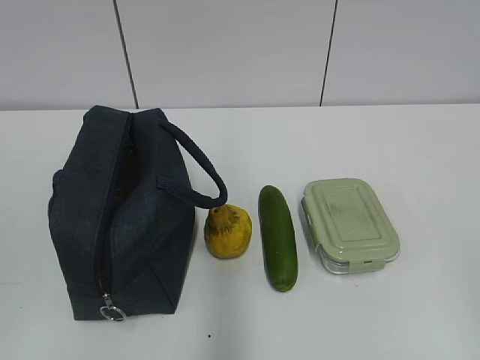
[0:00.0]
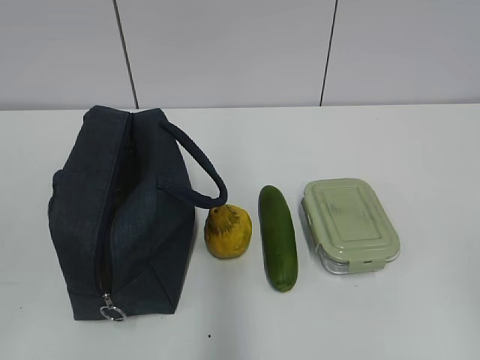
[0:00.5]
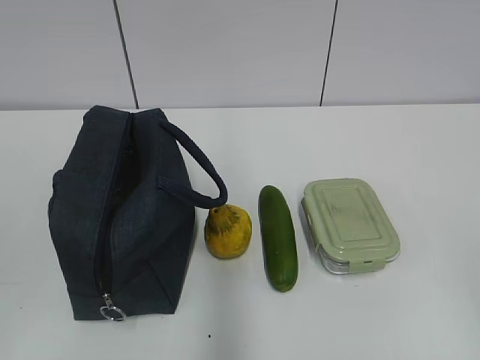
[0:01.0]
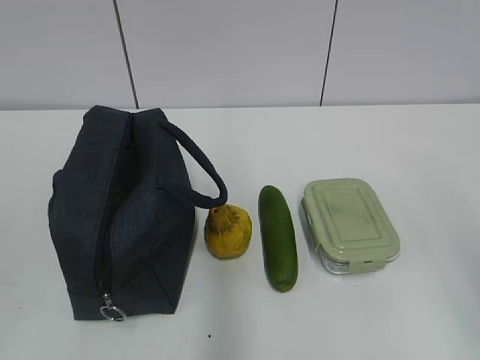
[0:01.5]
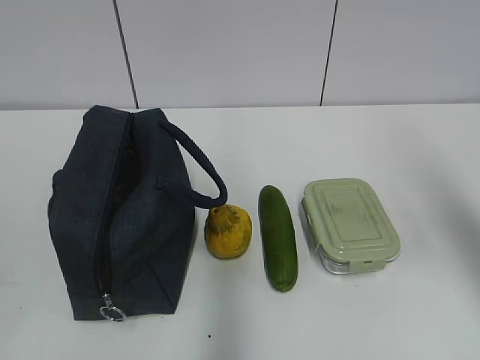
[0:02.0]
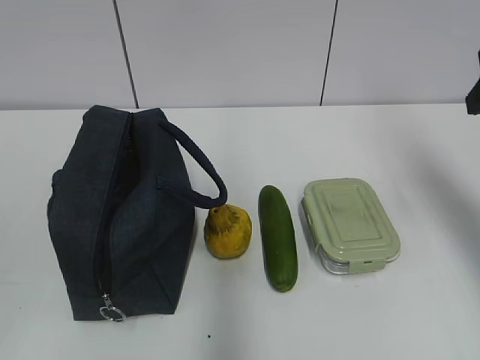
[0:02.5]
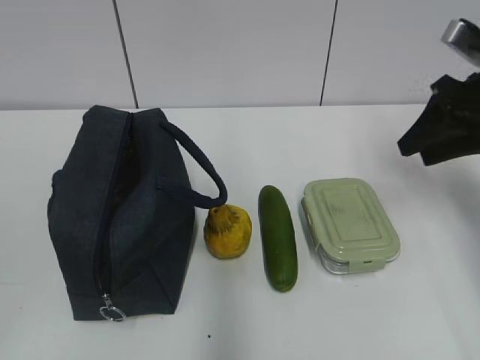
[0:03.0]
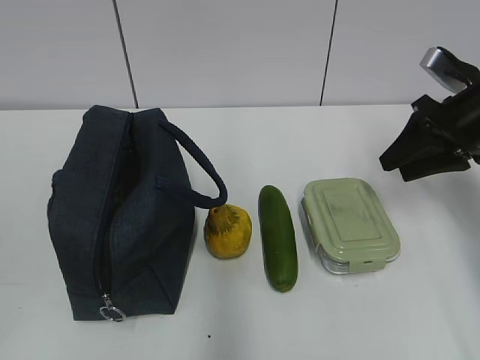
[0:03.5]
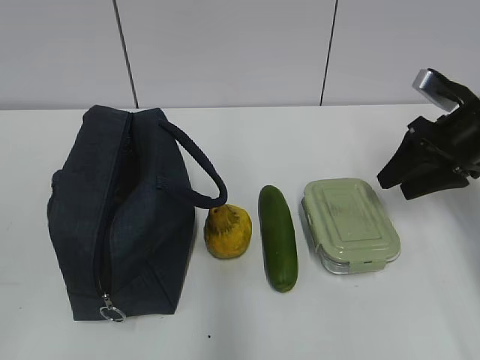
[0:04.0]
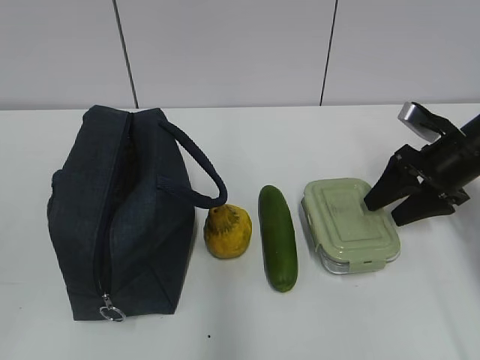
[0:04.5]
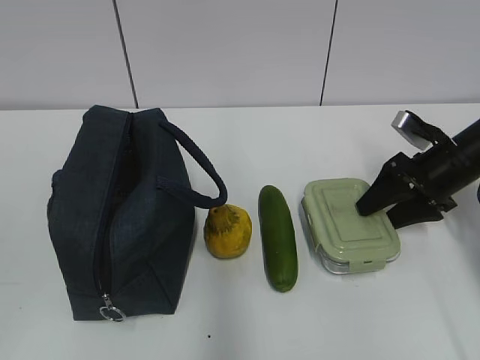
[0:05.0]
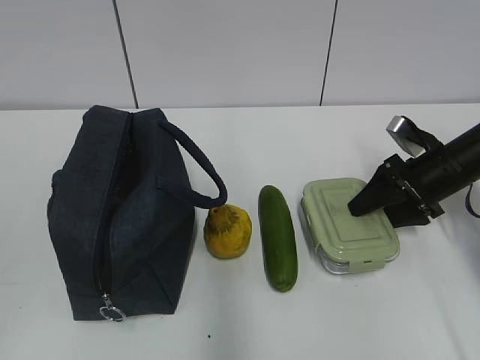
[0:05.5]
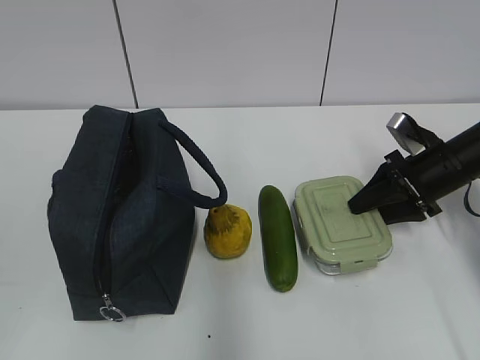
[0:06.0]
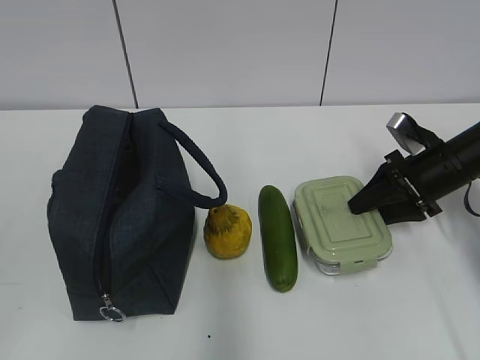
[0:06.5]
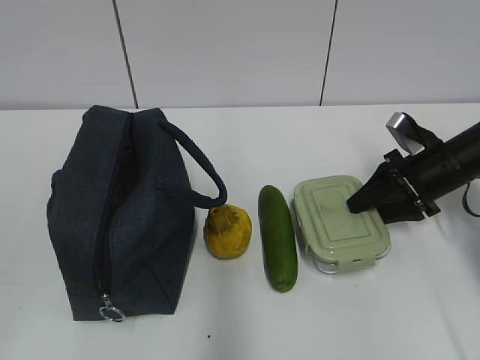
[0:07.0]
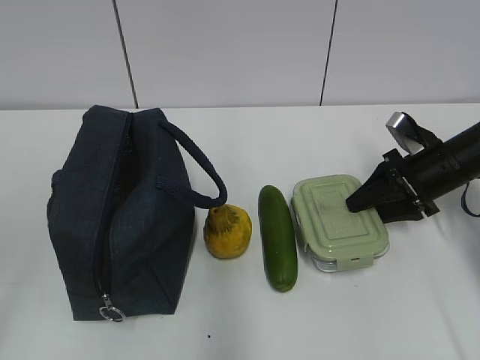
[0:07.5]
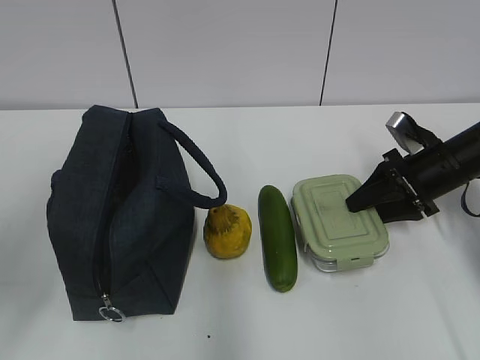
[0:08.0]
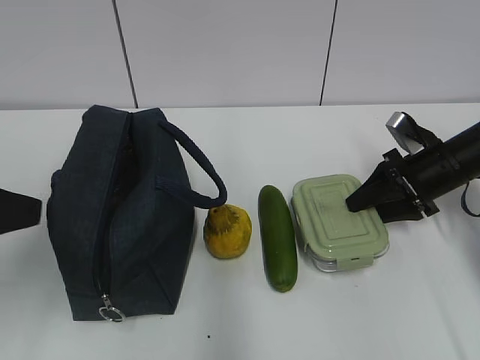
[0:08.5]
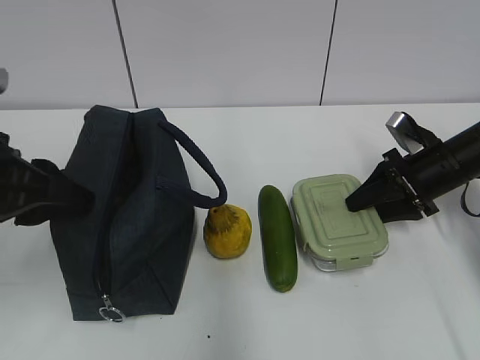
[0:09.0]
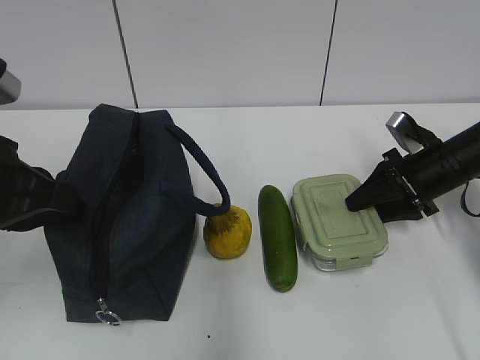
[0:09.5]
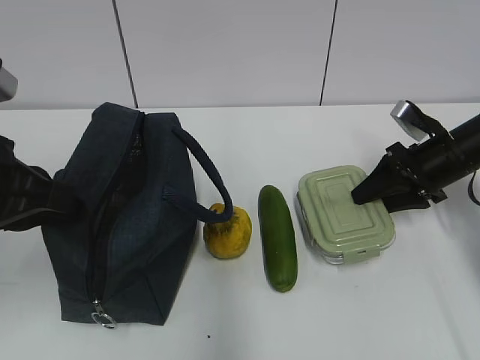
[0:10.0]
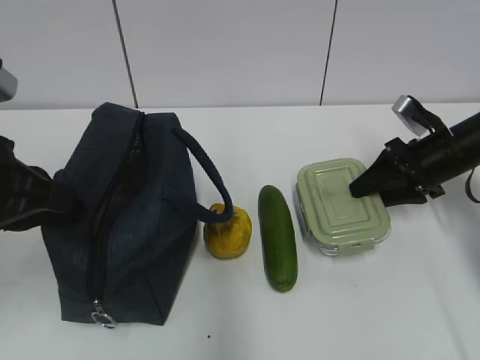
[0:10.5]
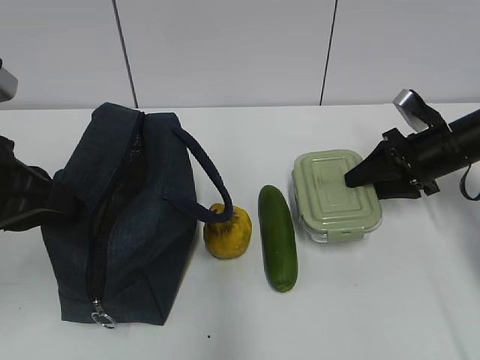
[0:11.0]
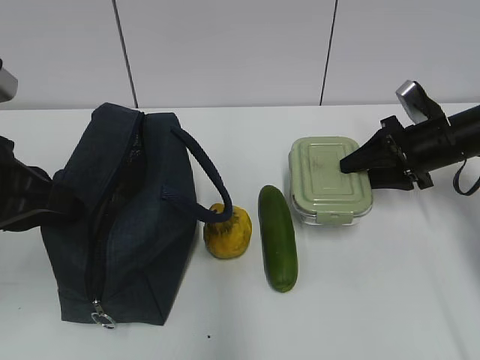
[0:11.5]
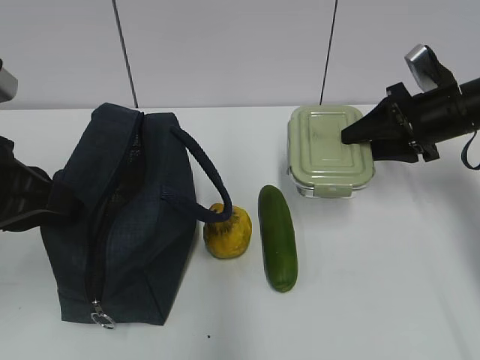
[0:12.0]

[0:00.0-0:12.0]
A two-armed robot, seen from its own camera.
Step, 0:00.0 to 0:06.0: Grab the lunch box with your right hand.
0:02.0 to 0:04.0: The right gripper goes approximately 25 cm forward and downward.
0:04.0 to 0:06.0: The right gripper heads downward, covering about 5 cm.
0:06.0 to 0:08.0: The left gripper heads forward, covering about 15 cm.
0:08.0 to 0:10.0: The left gripper is displaced forward and to the right by about 10 cm, and closes its fingers.
0:10.0 to 0:12.0: The right gripper moves upward, roughly 5 cm.

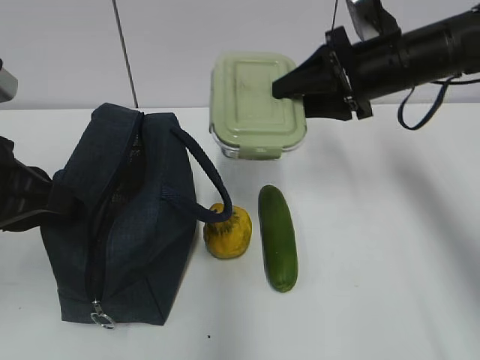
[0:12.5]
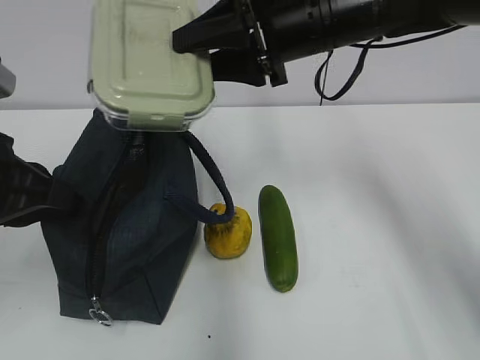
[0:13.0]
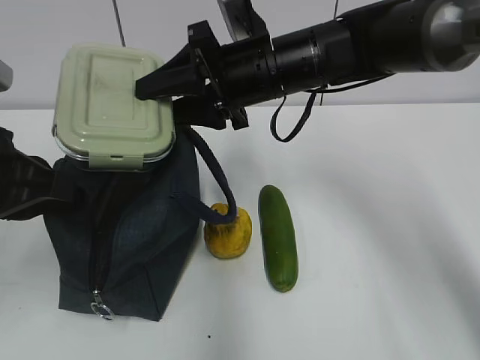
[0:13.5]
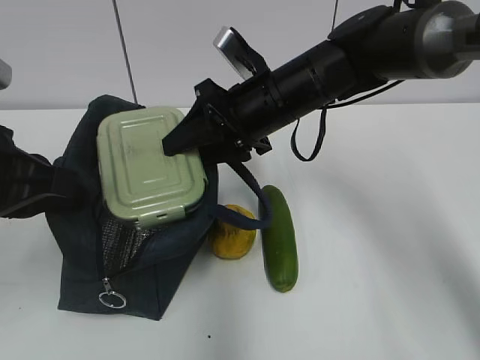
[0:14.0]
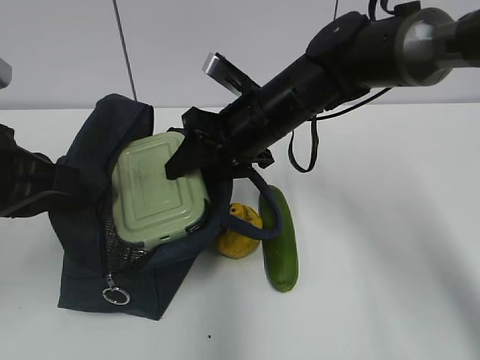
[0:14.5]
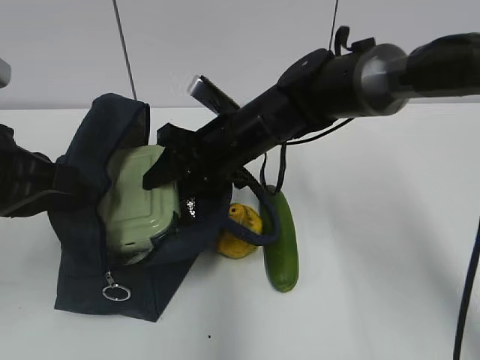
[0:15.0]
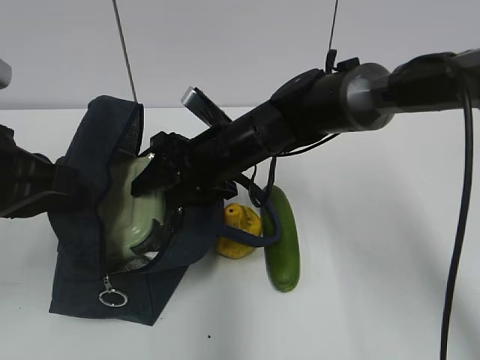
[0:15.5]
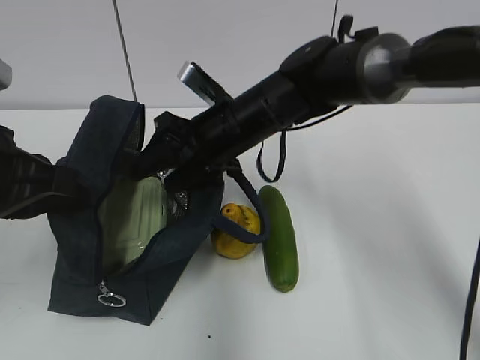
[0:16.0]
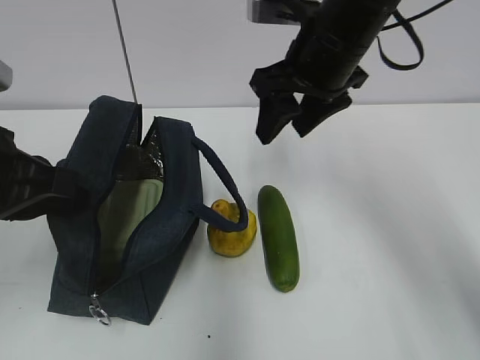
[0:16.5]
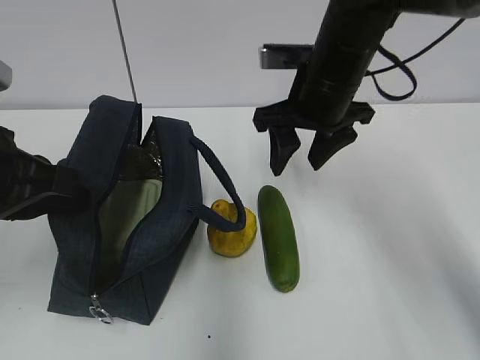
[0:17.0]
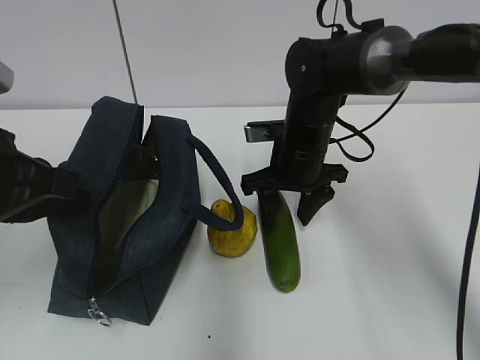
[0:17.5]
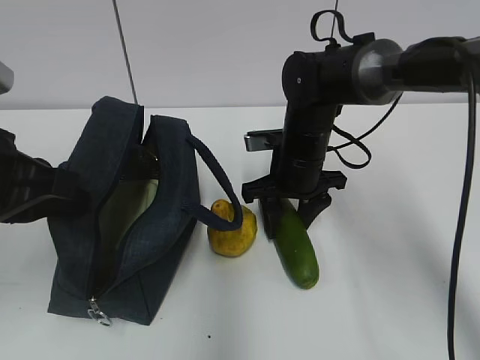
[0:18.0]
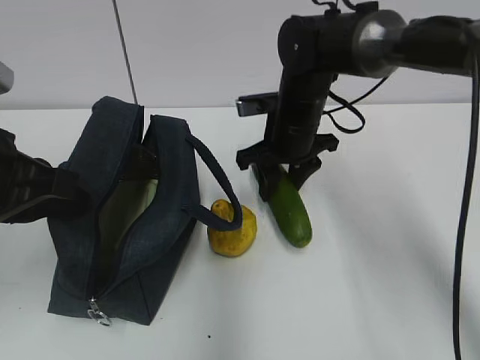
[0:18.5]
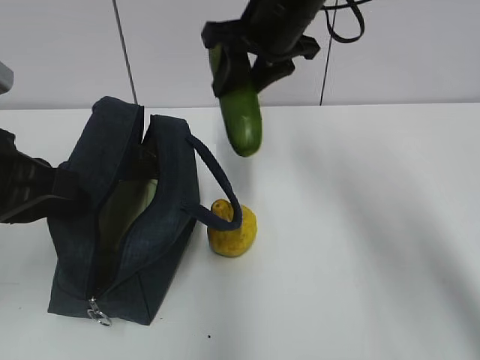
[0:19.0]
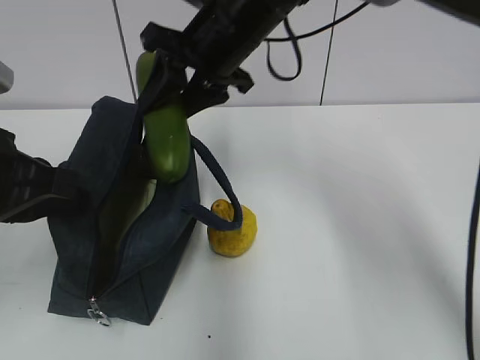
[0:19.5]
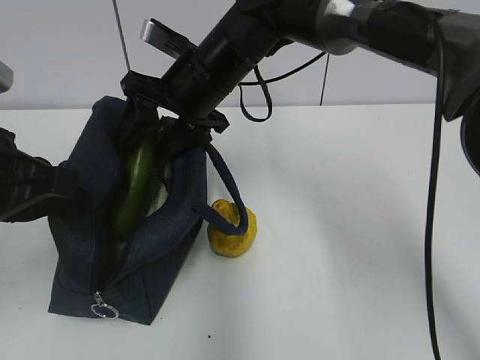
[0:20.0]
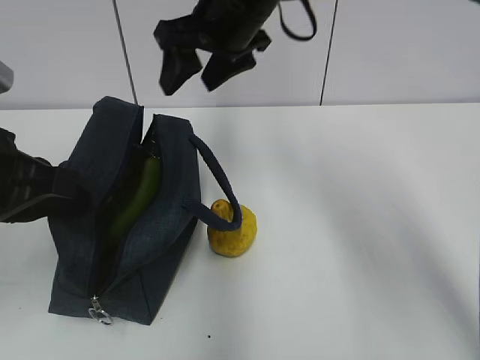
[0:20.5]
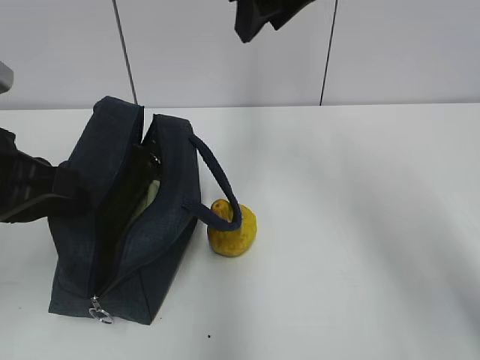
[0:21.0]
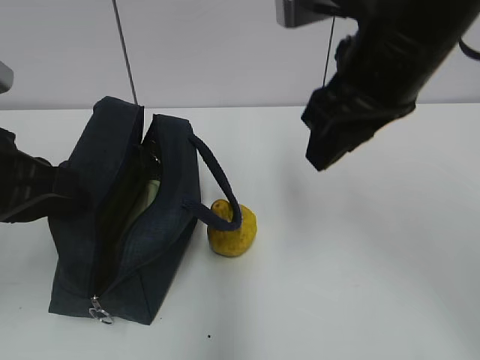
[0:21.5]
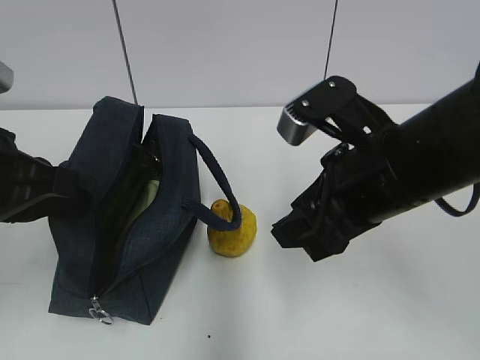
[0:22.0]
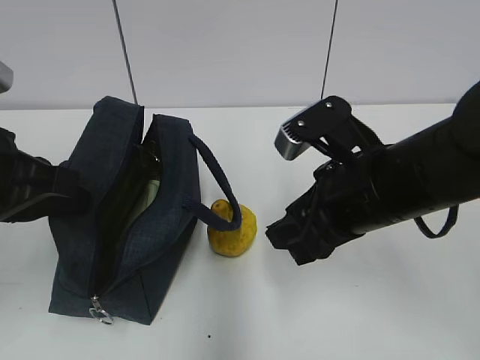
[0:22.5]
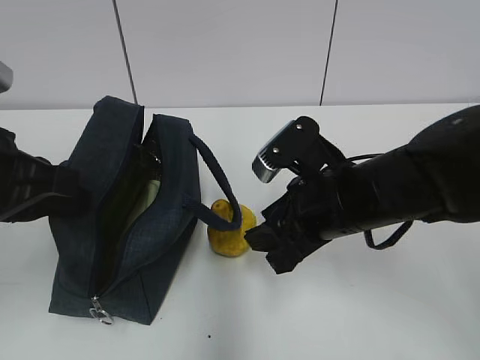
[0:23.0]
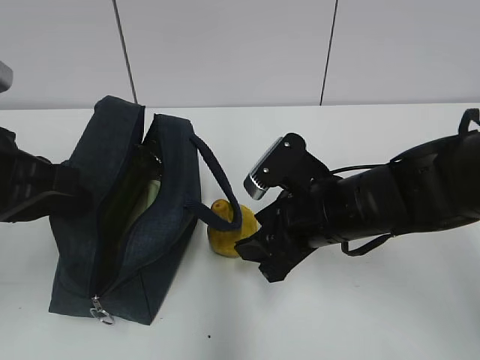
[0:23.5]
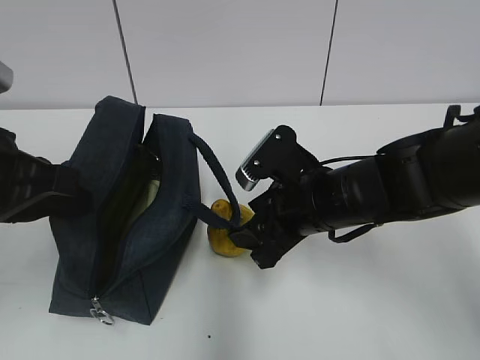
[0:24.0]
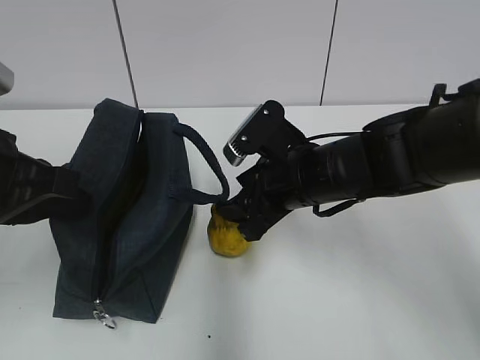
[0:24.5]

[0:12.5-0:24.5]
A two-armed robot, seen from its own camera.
Step, 0:14.0 to 0:15.5: Place it into the bag with your right hand.
Step, 0:16.0 to 0:18.0: Grab the cucumber with your right hand.
Step, 0:18.5 to 0:20.0: Place it into the bag with your right hand.
0:12.5 to 0:14.5: The right gripper goes some 15 cm to the left and downward.
0:14.5 to 0:16.5: The right gripper shifts some 10 cm upward and to the right.
0:16.5 to 0:18.5: The right gripper shifts roughly 15 cm downward and forward.
0:18.5 to 0:20.5: The right gripper goes up and down, some 15 cm each way, reversing 2 times.
0:20.5 to 0:22.5: The right gripper heads backward, downward and to the right, covering about 20 cm.
0:22.5 to 0:24.5: The right gripper heads forward, covering some 5 cm.

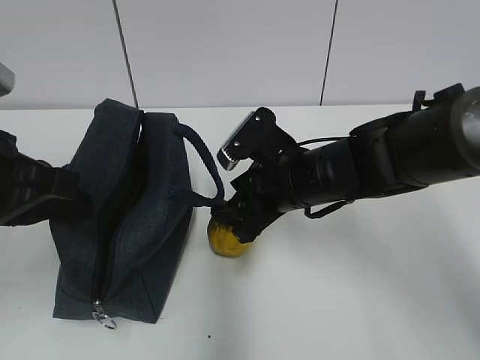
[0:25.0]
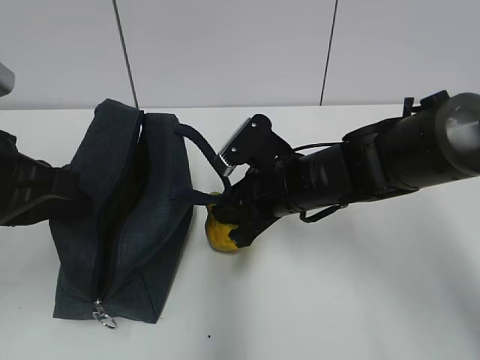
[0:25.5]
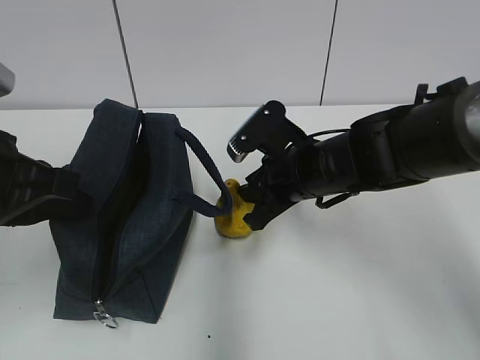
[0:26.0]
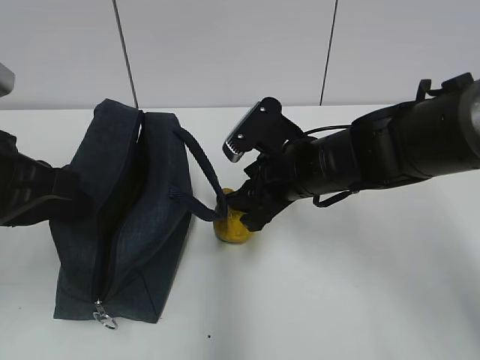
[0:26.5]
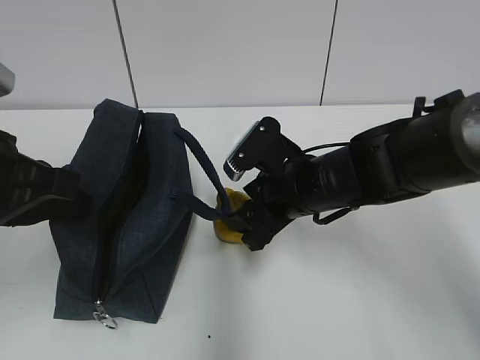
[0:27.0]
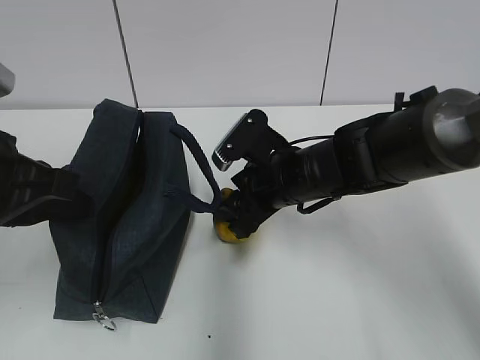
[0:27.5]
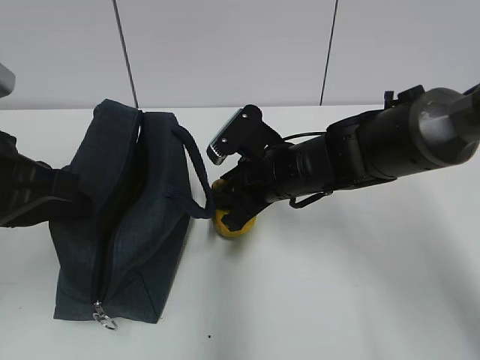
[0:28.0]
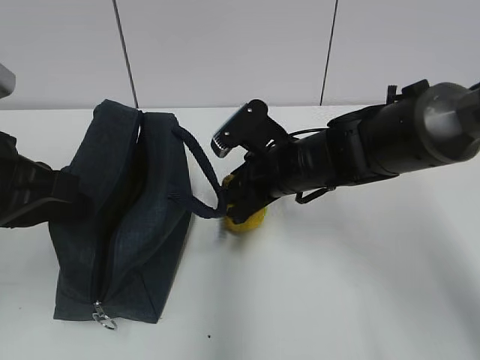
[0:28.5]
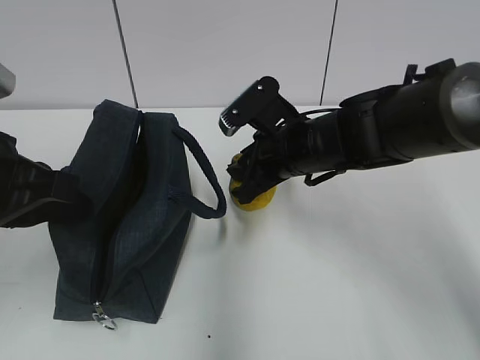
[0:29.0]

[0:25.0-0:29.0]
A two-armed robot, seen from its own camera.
Step, 0:25.0 to 0:28.0: Grab the pear with your right hand.
0:25.0 to 0:27.0: The right gripper closes, then opens again.
0:27.0 to 0:29.0: The right gripper closes.
